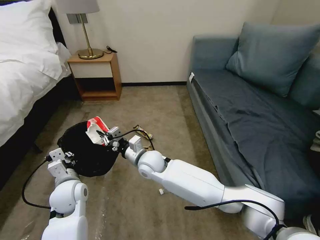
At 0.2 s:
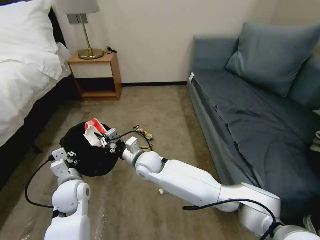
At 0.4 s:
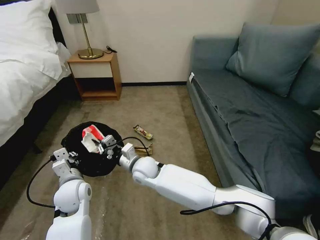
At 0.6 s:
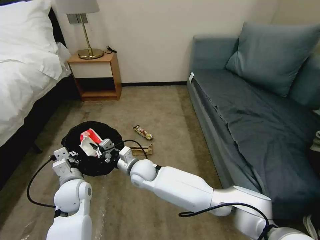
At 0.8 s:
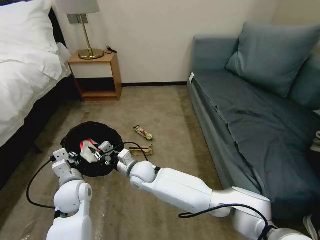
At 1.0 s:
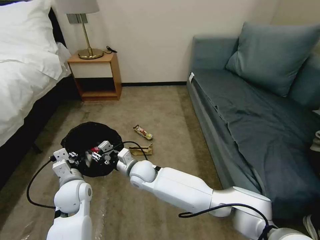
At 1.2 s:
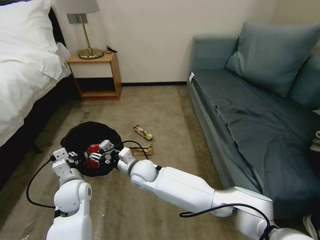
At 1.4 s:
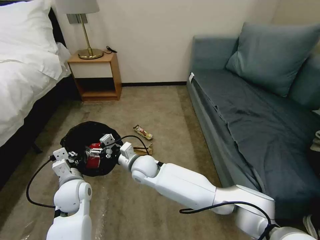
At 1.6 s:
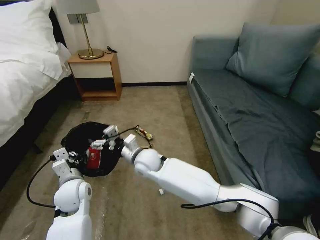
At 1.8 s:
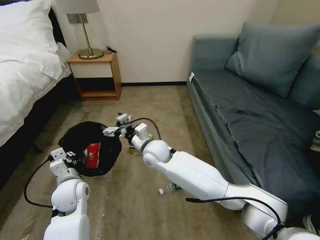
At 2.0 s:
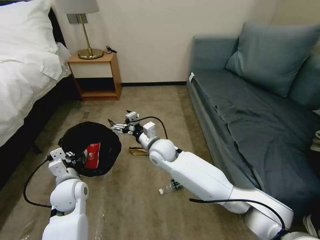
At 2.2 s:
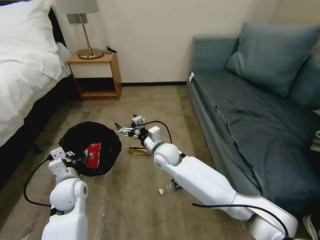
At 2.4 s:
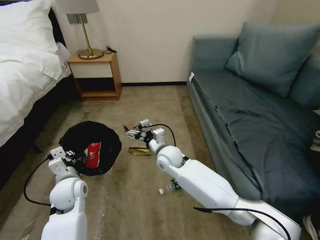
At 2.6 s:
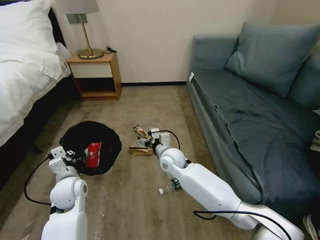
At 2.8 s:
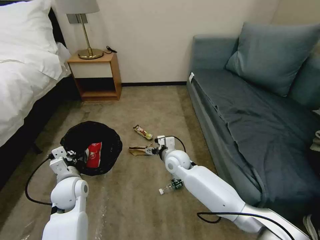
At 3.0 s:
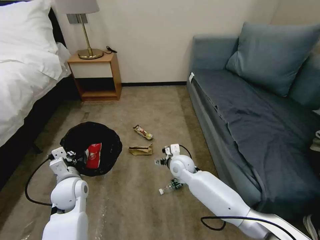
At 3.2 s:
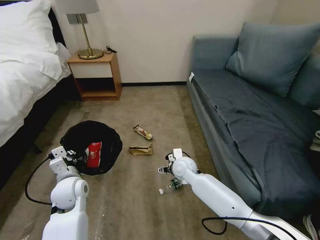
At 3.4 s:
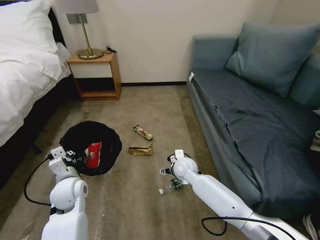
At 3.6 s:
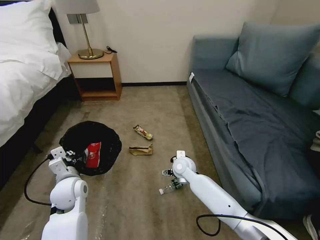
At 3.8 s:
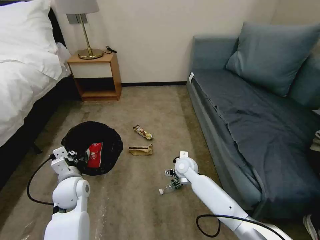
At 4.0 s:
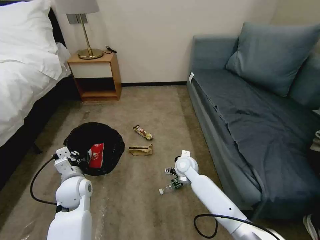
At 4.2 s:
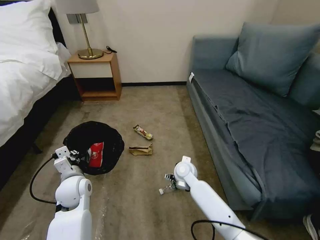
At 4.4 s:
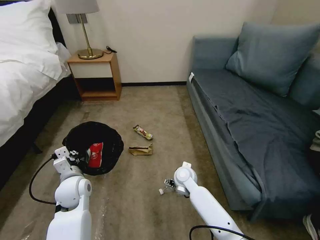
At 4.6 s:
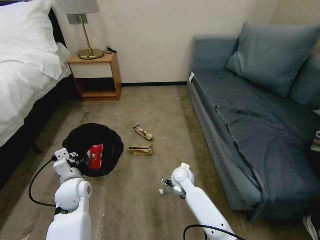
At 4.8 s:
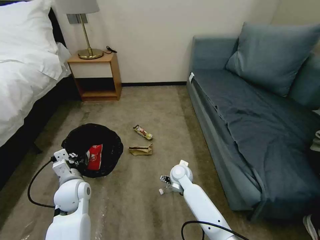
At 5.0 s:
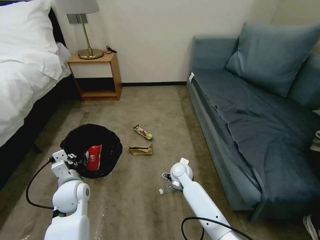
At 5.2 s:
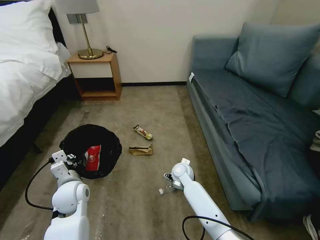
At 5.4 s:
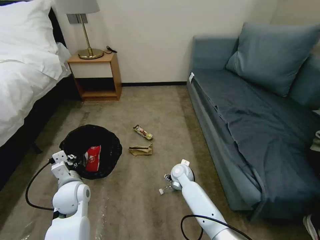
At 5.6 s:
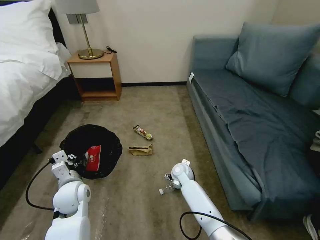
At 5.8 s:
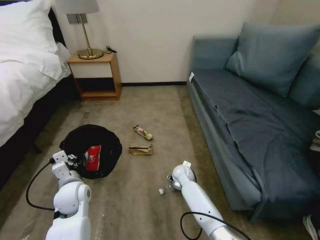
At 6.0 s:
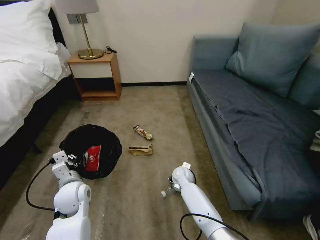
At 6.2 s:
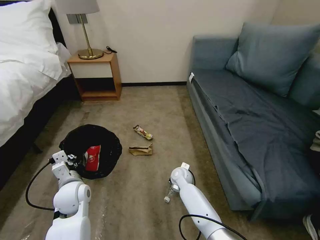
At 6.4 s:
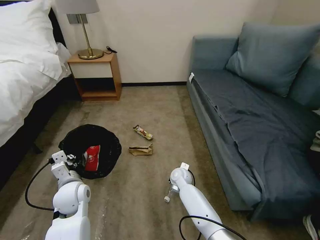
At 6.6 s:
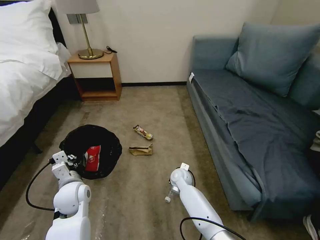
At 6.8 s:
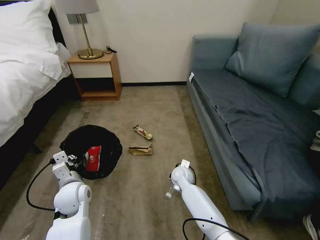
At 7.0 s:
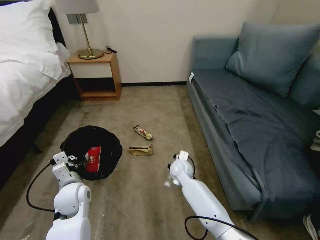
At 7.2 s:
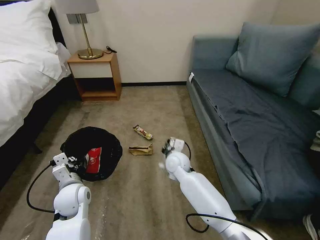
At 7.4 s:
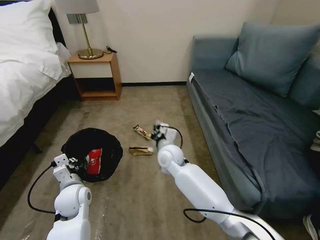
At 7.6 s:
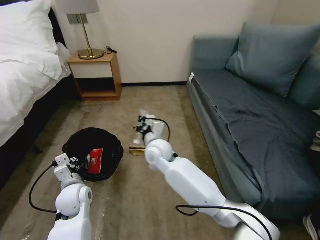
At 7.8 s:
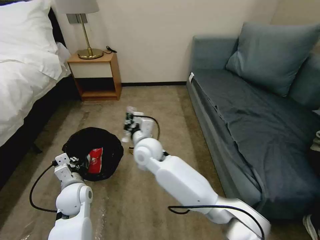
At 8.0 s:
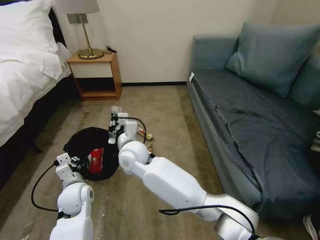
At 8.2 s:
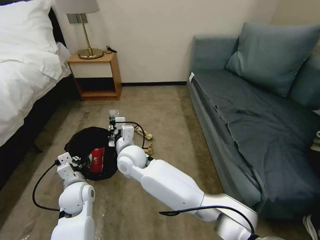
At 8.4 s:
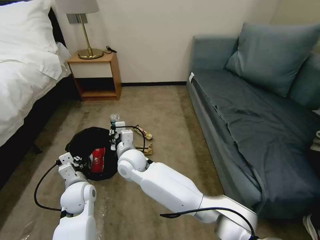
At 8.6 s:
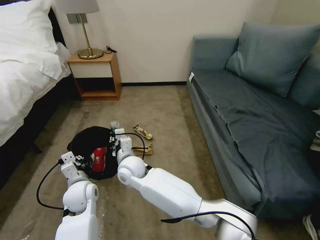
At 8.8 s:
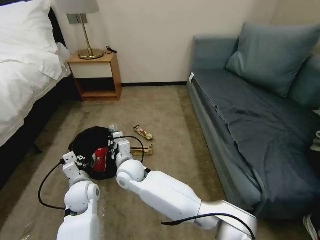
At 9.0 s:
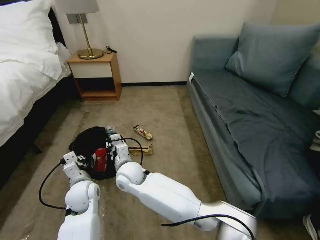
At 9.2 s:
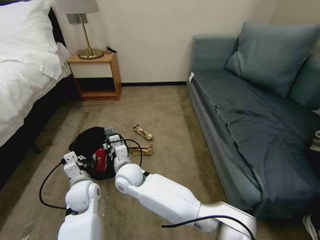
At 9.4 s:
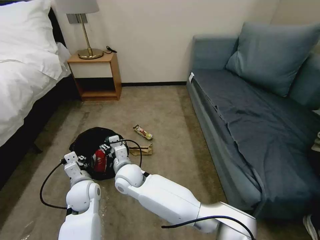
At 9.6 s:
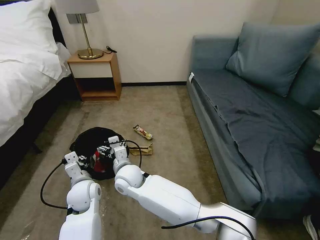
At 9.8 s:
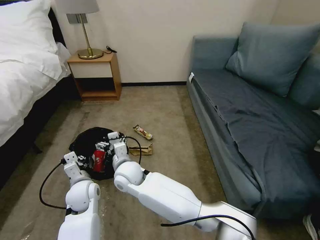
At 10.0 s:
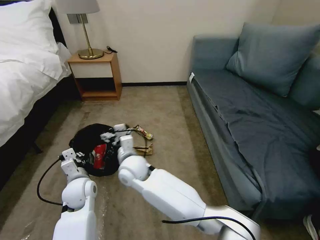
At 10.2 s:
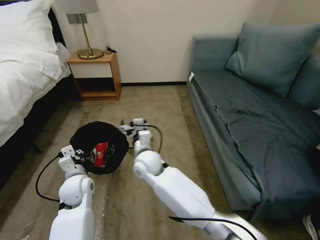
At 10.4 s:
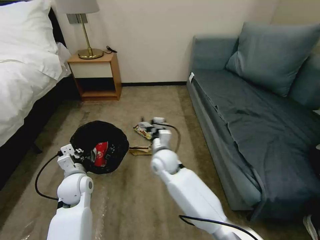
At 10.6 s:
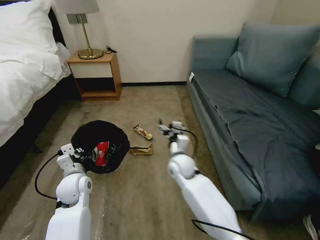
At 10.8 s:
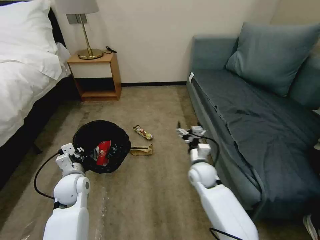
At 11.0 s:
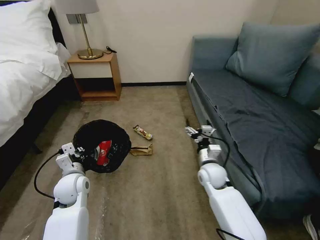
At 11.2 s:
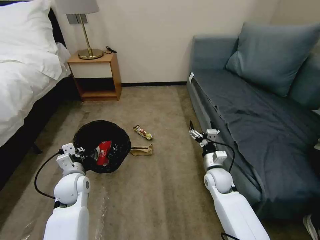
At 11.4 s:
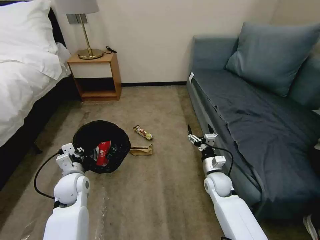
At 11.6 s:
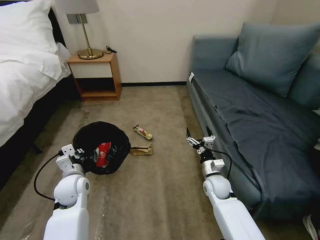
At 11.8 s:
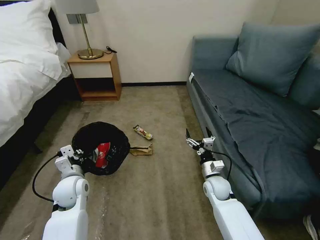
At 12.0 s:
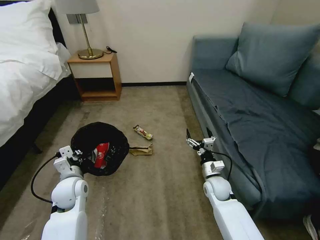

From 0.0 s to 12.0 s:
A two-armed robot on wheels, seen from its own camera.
Task of the whole recording: Pick up the trash bin, then pick up the garbage on the floor and place it into the trash bin.
From 0.0 s to 1.6 s: The right gripper opens up.
From 1.6 s to 3.0 s: The right gripper travels to the right and downward by about 15 cm.
From 3.0 s to 4.4 s: The right gripper changes place by about 5 cm.
From 4.4 s to 6.0 s: The right gripper moves downward, roughly 5 cm.
From 6.0 s to 7.6 s: The right gripper moves upward and to the left, some 25 cm, and closes its fingers.
From 7.6 s to 9.0 s: The right gripper goes about 15 cm to the left, downward and backward.
From 9.0 s to 10.4 s: The right gripper heads to the right, covering roughly 10 cm, and opens up.
From 10.4 s to 12.0 s: The right gripper travels to the right and downward by about 25 cm.

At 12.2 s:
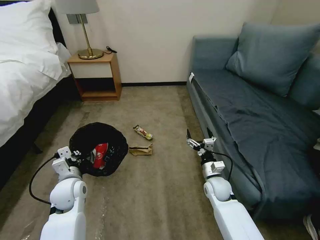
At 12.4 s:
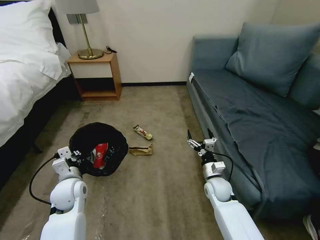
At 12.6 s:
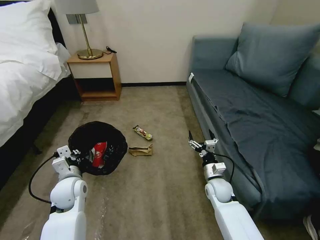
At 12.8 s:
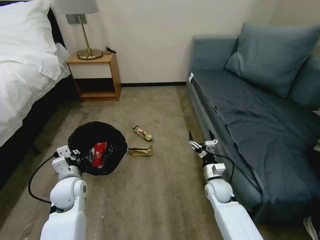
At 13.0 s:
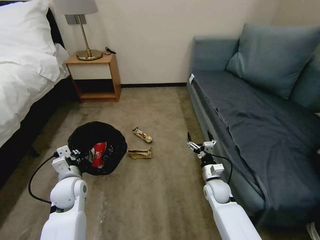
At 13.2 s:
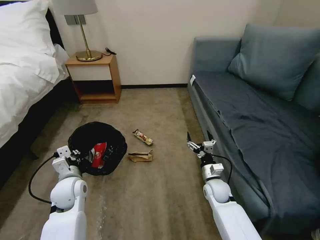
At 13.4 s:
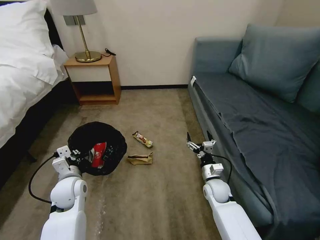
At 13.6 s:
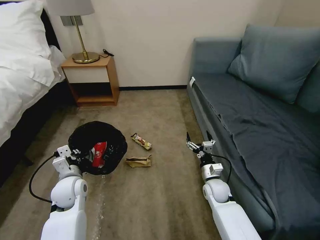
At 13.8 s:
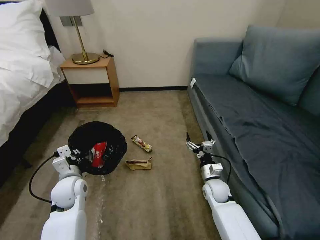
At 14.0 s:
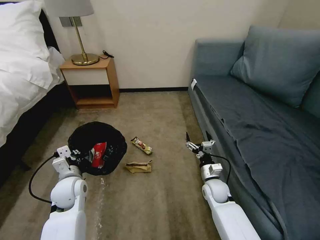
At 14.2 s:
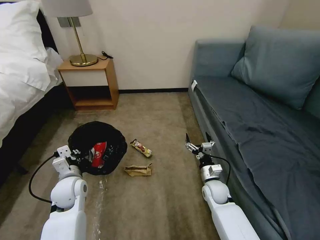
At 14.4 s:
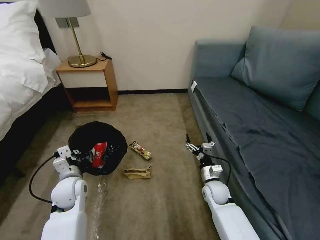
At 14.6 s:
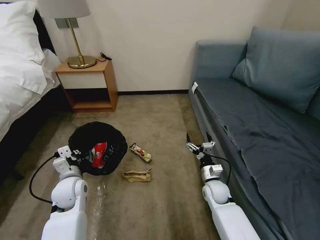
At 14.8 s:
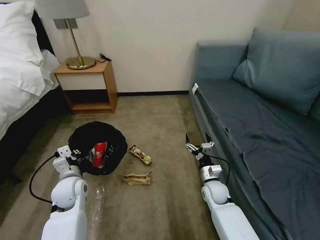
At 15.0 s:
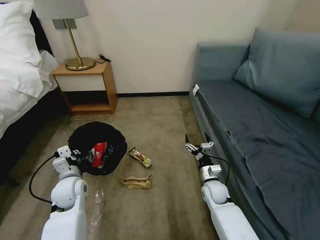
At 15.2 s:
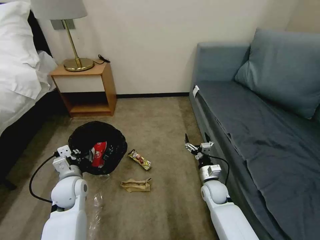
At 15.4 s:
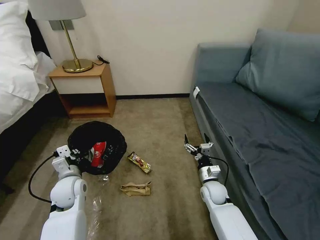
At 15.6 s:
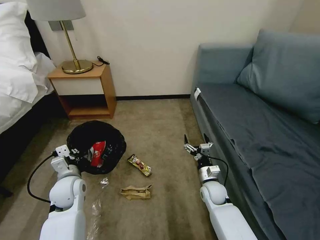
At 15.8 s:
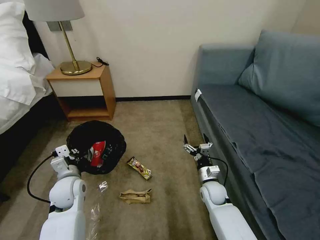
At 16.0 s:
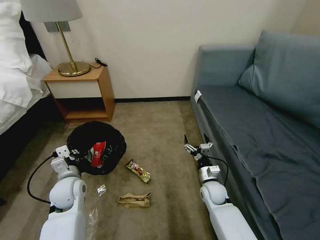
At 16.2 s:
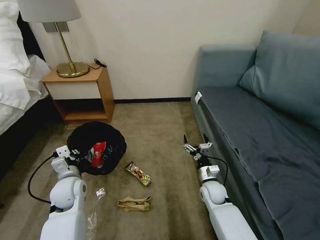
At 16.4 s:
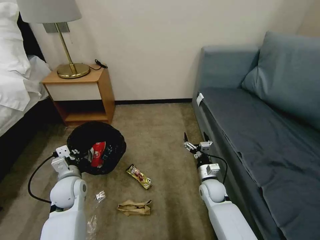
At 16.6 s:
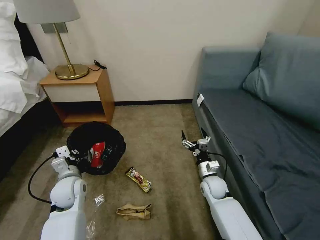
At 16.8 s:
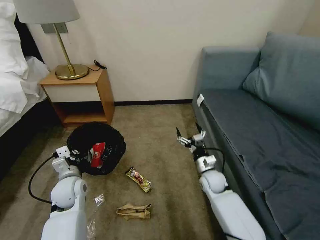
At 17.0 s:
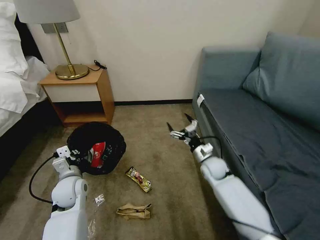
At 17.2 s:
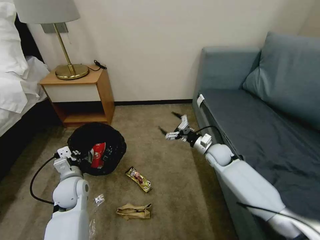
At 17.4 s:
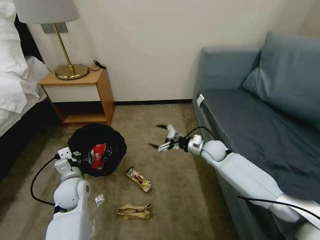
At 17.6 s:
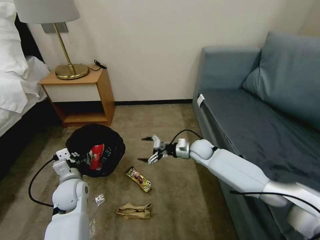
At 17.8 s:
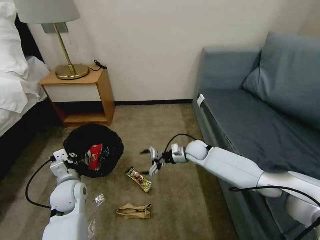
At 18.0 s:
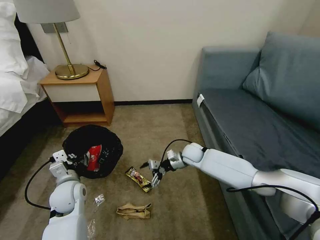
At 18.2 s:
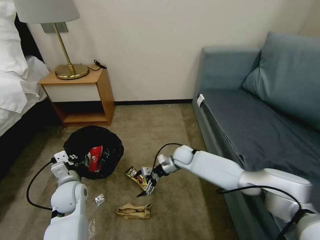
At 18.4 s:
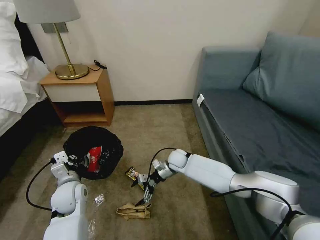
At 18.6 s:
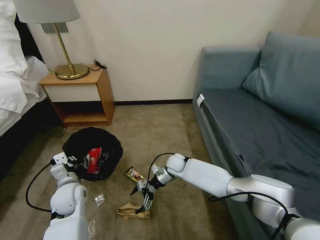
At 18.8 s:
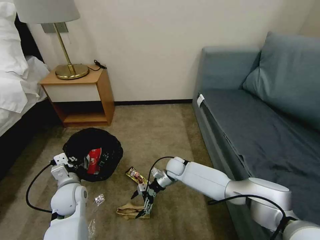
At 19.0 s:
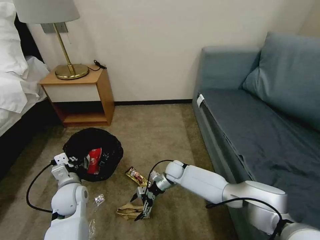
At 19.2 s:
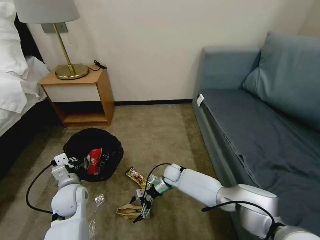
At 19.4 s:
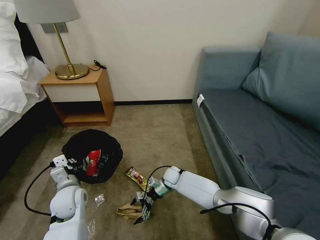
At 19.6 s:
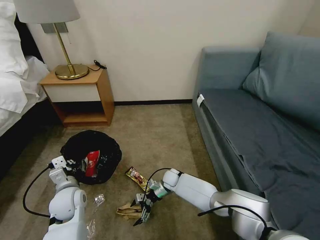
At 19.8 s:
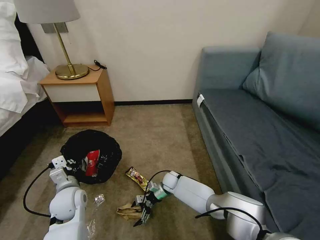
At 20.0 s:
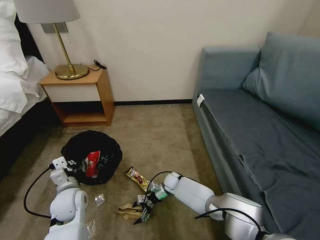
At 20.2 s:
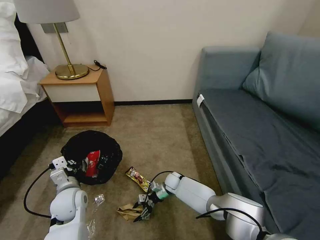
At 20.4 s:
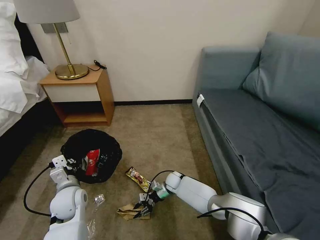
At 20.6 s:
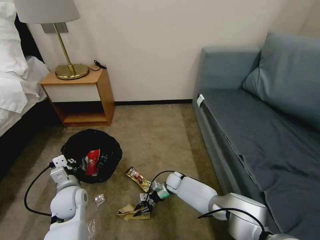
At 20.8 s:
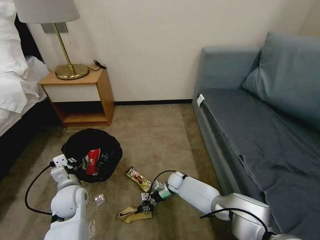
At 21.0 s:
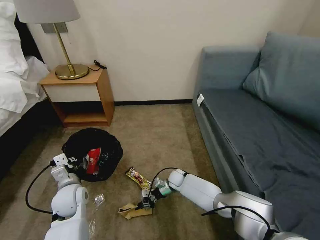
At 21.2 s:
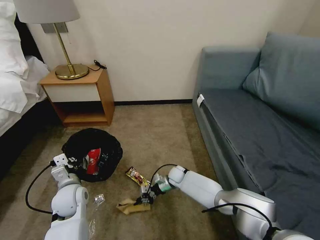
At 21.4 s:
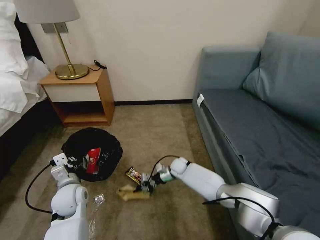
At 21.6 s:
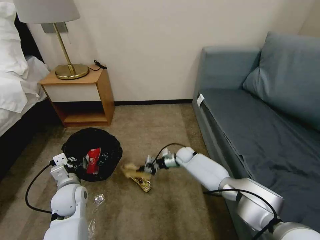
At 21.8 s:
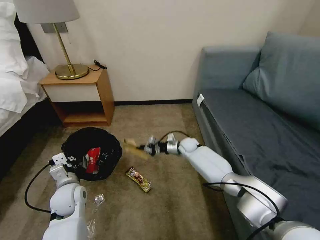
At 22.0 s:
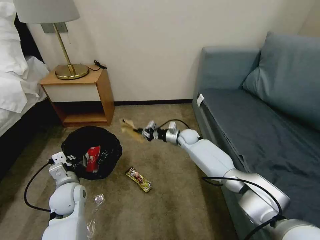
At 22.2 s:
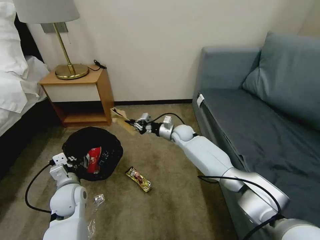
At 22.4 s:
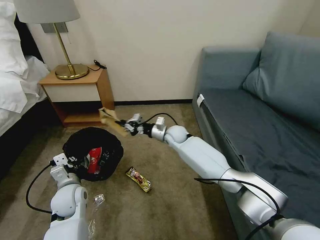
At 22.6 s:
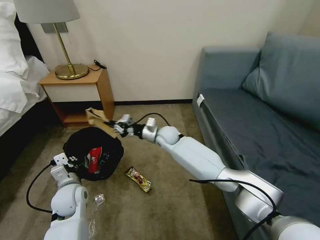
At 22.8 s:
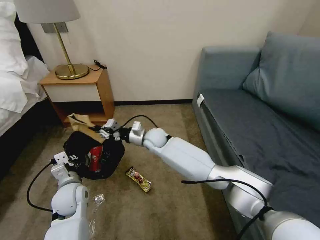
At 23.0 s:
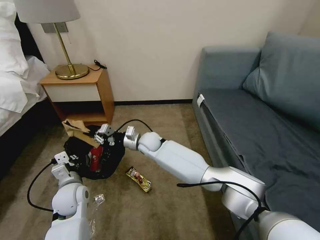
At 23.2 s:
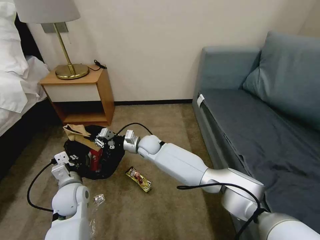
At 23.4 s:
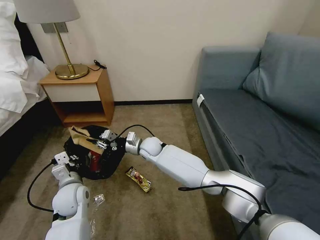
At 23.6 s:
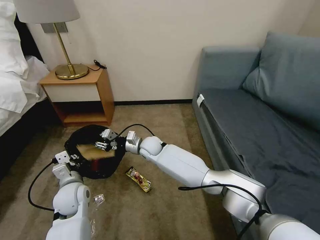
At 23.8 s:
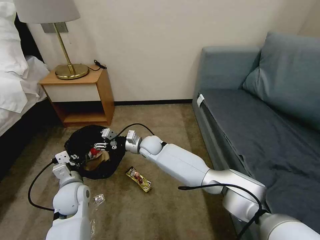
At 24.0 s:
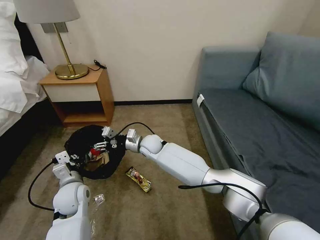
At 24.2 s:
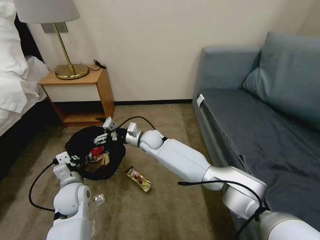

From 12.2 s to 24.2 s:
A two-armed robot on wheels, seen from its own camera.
Task of the whole recording: Pick up the trash bin, then pick up the garbage on the floor and place it into the trash bin.
From 12.2 s to 13.8 s: There are only small adjustments of the grippers.
From 13.8 s to 15.2 s: Both grippers stay about where they are.
From 15.2 s to 16.6 s: The grippers stay close to where they were, moving slightly.
From 16.6 s to 18.2 s: The right gripper heads forward and to the left, covering roughly 15 cm.
From 18.2 s to 19.8 s: The right gripper shifts some 15 cm downward.
From 19.8 s to 21.2 s: The right gripper closes.
From 21.2 s to 22.6 s: The right gripper moves upward, roughly 20 cm.
From 22.6 s to 24.2 s: The right gripper moves to the left, some 5 cm, and opens.
